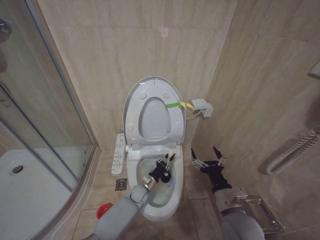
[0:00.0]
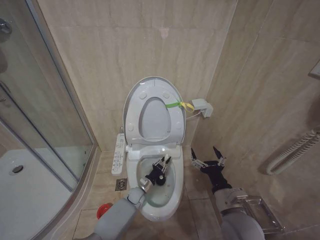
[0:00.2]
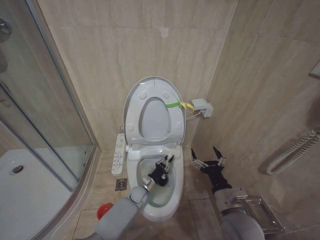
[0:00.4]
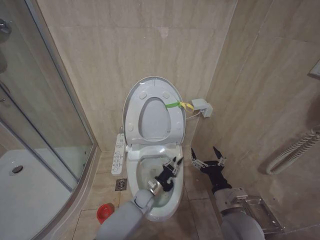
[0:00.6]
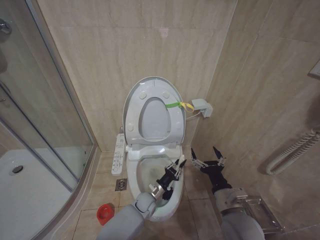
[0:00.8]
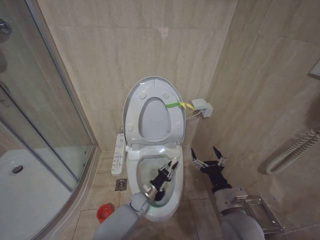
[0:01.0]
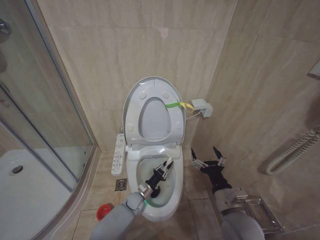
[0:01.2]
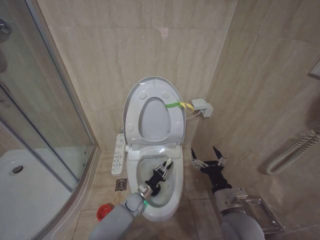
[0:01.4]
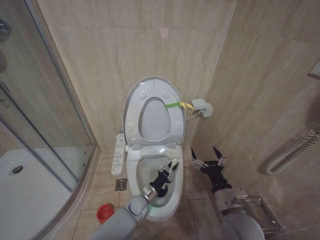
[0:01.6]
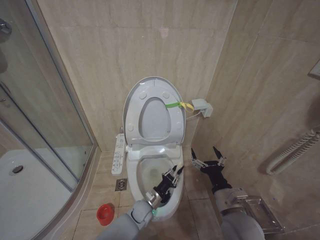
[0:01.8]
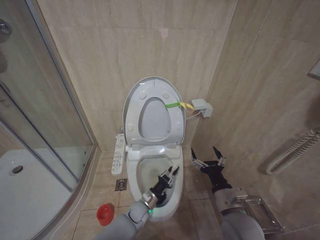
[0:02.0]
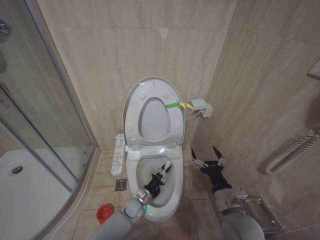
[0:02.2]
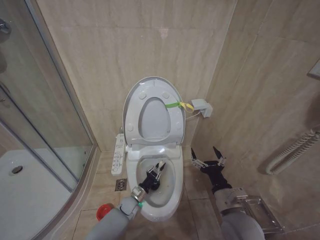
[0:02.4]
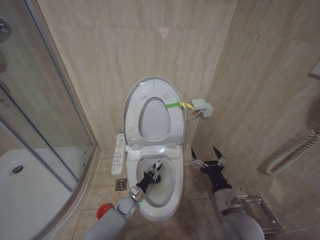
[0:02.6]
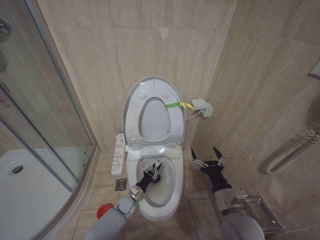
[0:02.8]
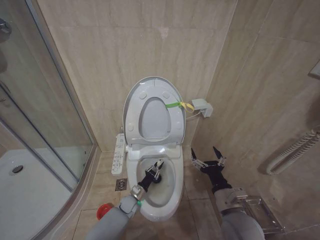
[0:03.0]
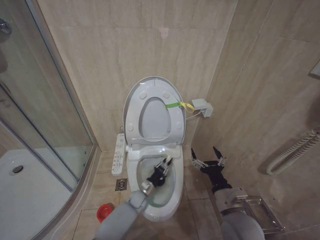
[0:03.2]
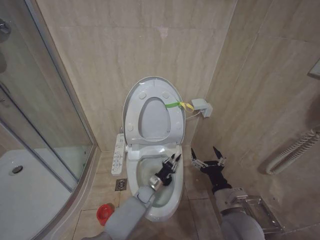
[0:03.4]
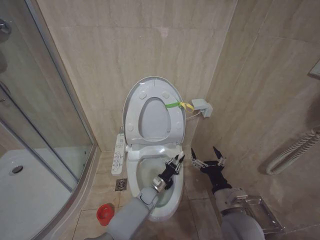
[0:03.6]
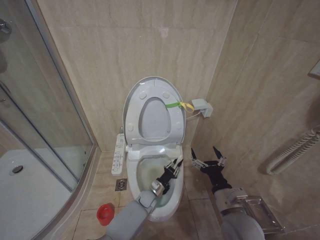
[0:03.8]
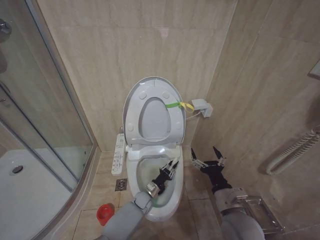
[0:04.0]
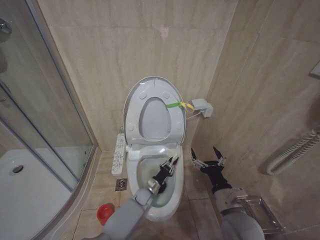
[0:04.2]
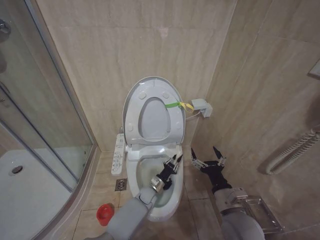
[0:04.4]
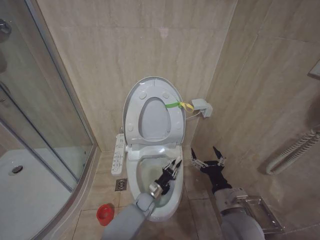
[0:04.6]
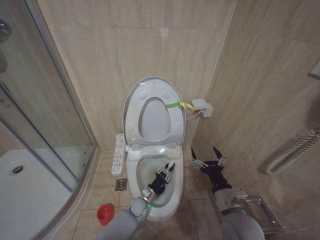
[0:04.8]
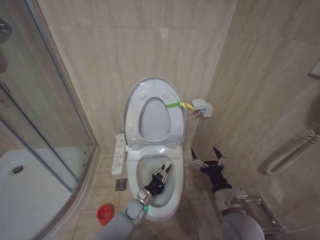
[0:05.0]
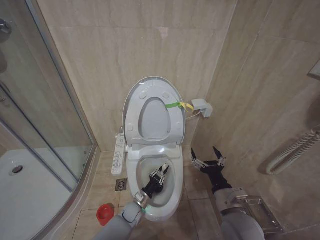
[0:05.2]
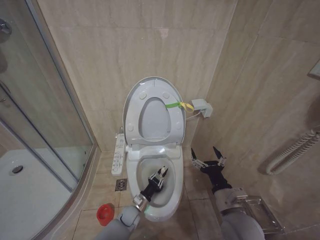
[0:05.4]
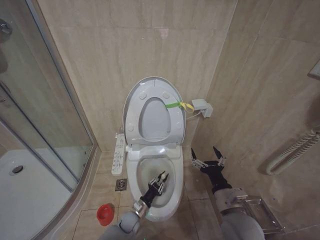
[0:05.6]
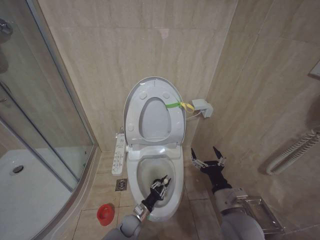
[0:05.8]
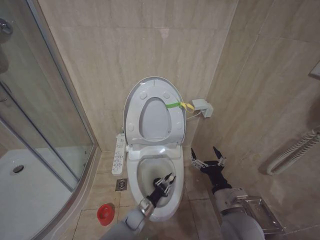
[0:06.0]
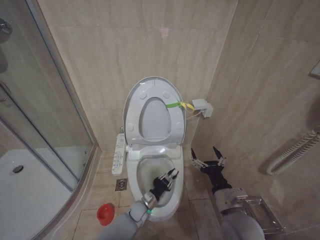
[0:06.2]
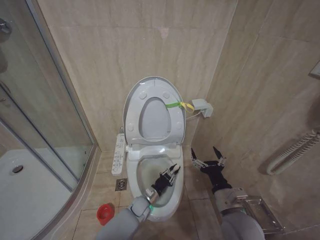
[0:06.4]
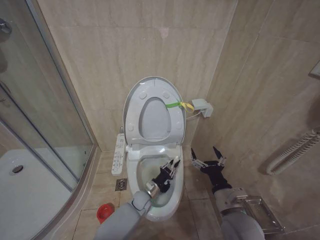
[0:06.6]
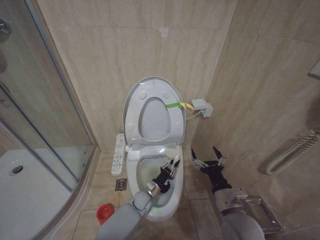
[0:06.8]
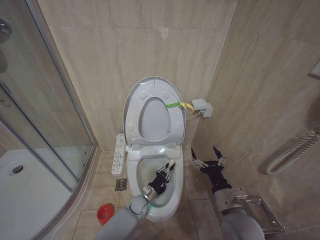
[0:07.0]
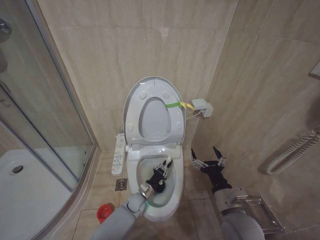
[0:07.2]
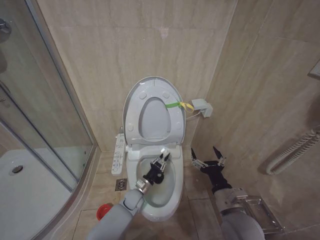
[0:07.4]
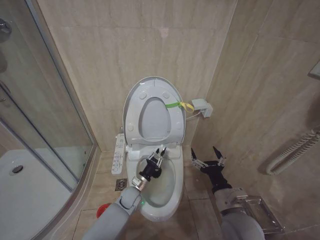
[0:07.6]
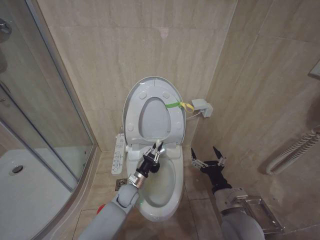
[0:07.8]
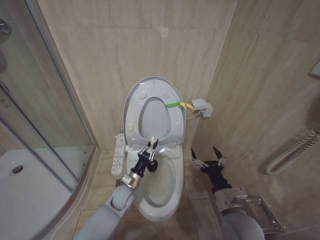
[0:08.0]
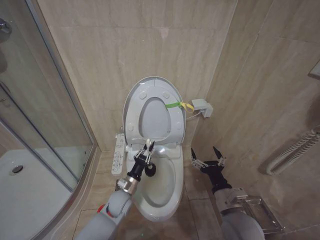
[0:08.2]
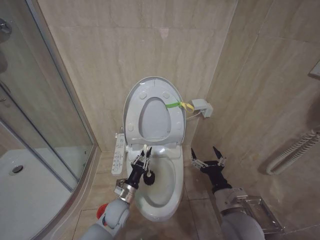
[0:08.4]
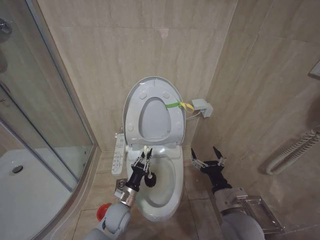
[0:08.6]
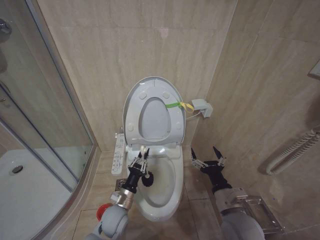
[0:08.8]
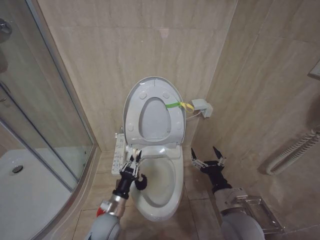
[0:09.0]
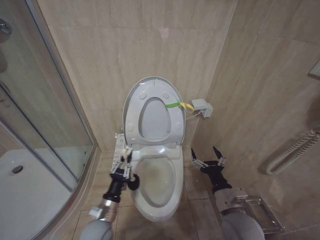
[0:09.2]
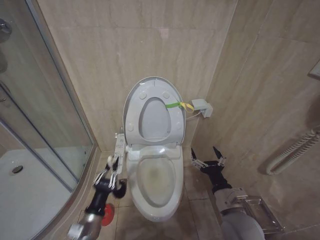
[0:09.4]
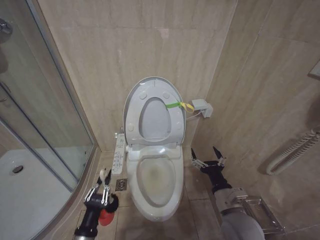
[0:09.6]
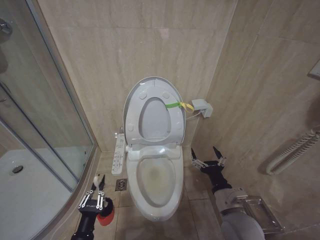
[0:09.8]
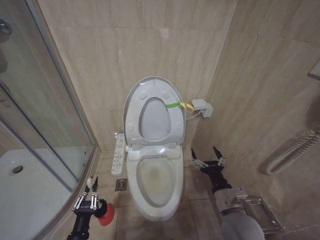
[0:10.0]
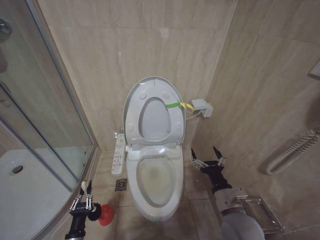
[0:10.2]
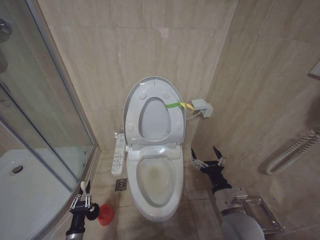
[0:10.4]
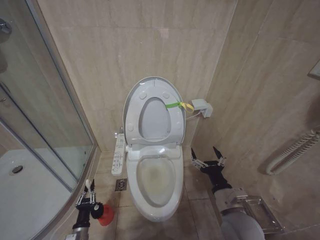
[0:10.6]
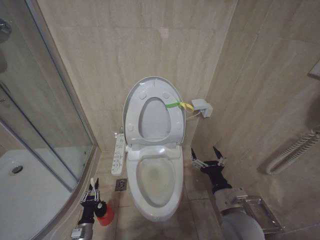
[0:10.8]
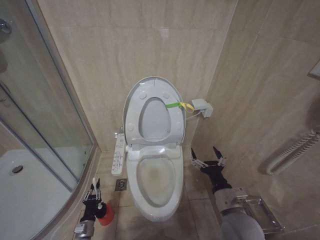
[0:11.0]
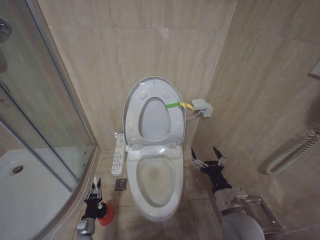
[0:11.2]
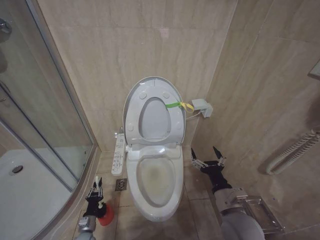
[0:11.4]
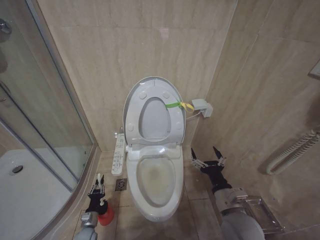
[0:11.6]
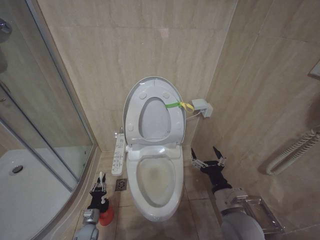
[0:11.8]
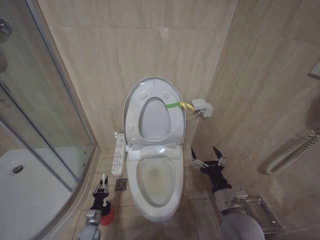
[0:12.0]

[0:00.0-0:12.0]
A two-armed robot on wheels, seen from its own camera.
Task of the whole recording: Open the toilet lid, clean the toilet bowl with a toilet brush, close the toilet lid, and flush.
0:00.0 to 0:01.6: The grippers stay close to where they were, moving slightly.
0:01.6 to 0:03.0: The left gripper moves to the left, some 5 cm.
0:03.0 to 0:04.4: The left gripper travels to the right by roughly 10 cm.
0:04.4 to 0:06.0: The left gripper moves backward, to the left and downward, roughly 15 cm.
0:06.0 to 0:07.6: The left gripper moves upward and forward, roughly 15 cm.
0:07.6 to 0:09.0: The left gripper moves backward, upward and to the left, approximately 15 cm.
0:09.0 to 0:10.4: The left gripper moves to the left, downward and backward, about 20 cm.
0:10.4 to 0:12.0: The left gripper heads forward and downward, covering about 15 cm.

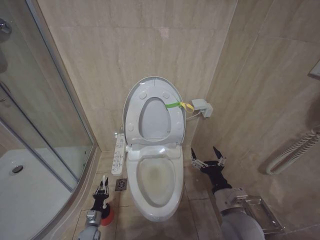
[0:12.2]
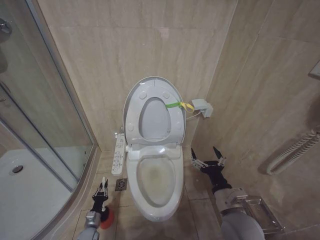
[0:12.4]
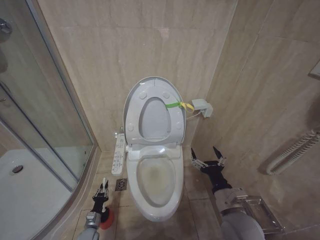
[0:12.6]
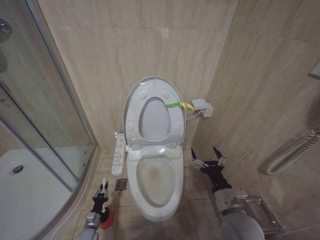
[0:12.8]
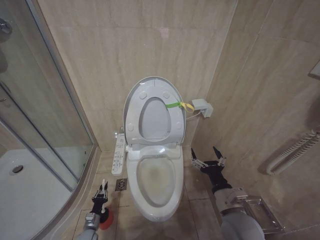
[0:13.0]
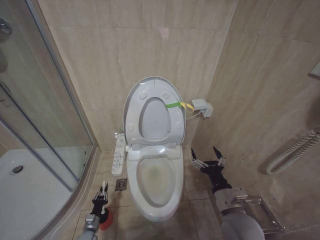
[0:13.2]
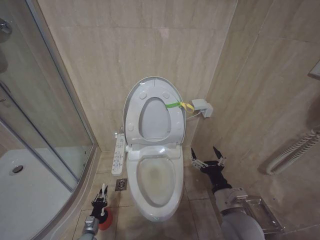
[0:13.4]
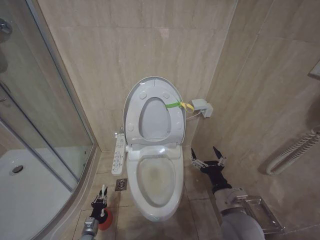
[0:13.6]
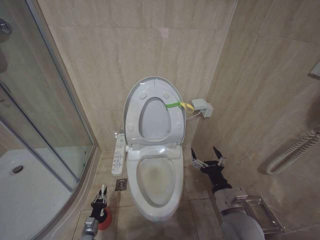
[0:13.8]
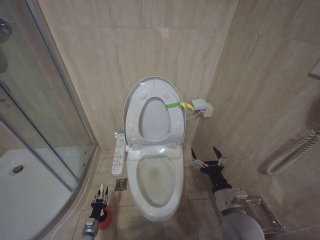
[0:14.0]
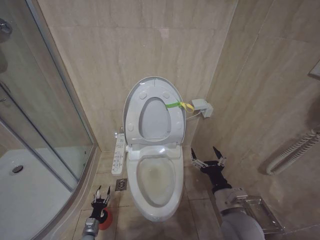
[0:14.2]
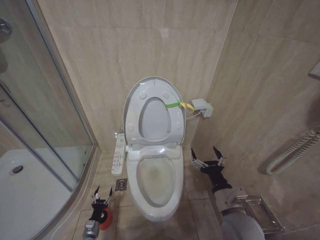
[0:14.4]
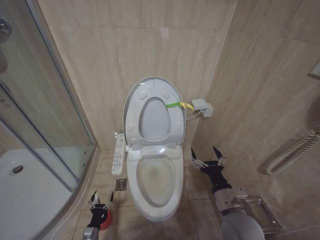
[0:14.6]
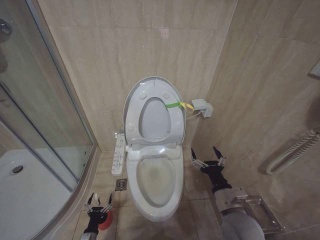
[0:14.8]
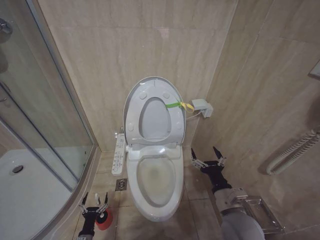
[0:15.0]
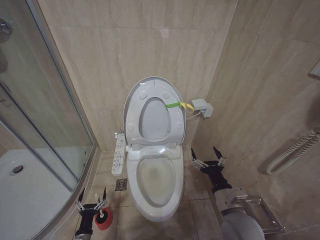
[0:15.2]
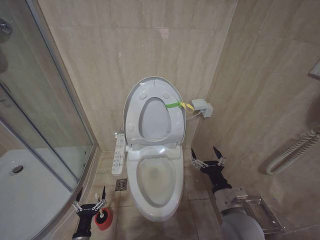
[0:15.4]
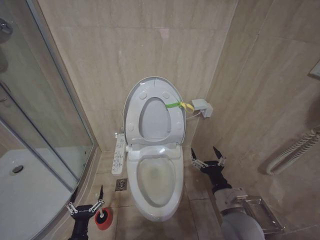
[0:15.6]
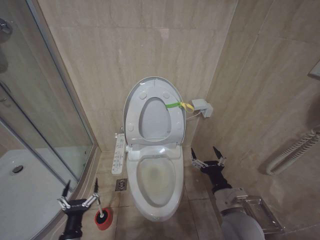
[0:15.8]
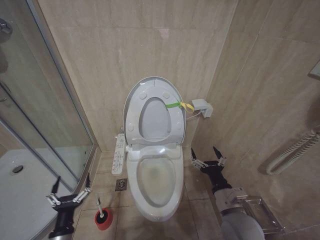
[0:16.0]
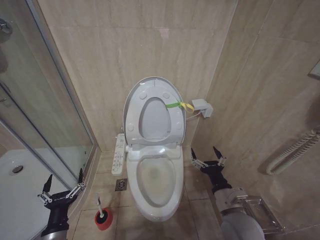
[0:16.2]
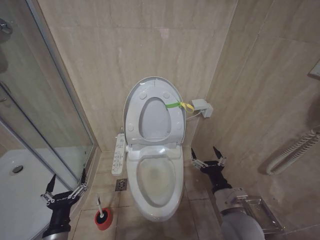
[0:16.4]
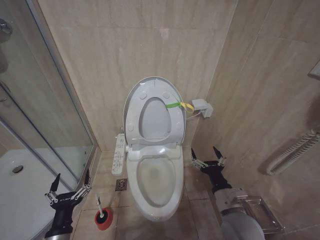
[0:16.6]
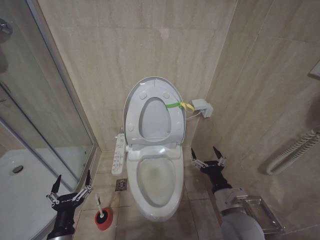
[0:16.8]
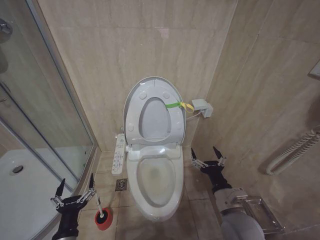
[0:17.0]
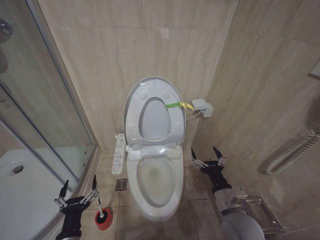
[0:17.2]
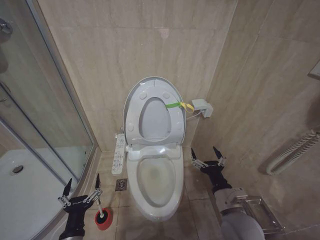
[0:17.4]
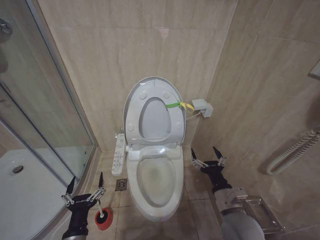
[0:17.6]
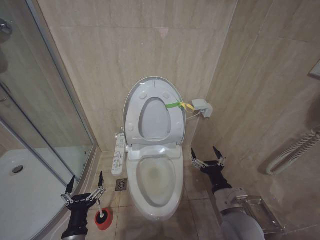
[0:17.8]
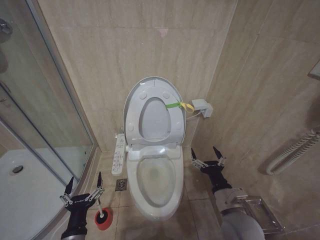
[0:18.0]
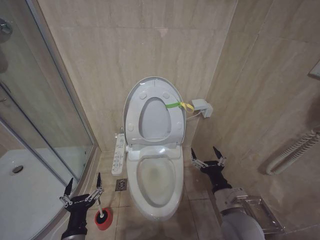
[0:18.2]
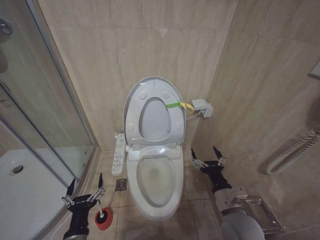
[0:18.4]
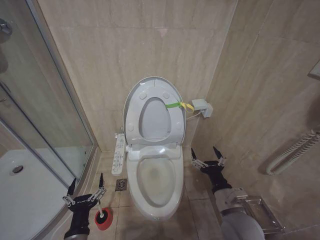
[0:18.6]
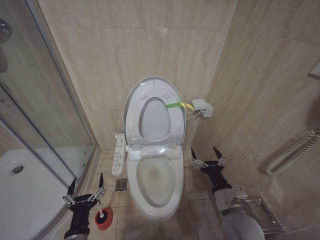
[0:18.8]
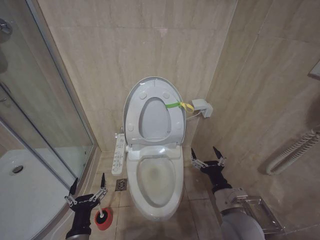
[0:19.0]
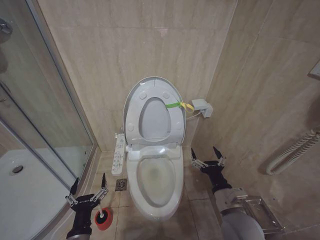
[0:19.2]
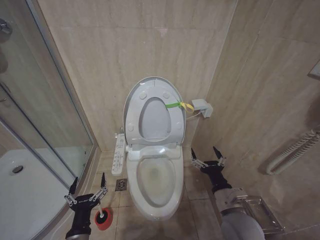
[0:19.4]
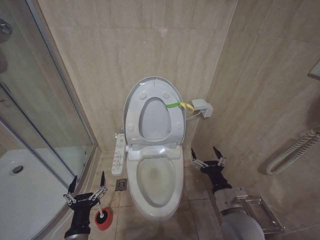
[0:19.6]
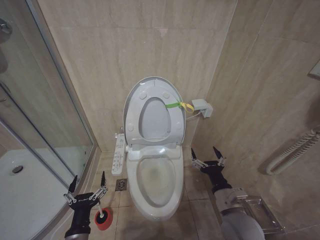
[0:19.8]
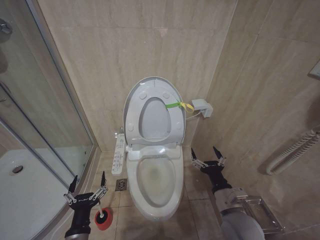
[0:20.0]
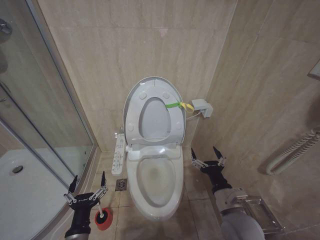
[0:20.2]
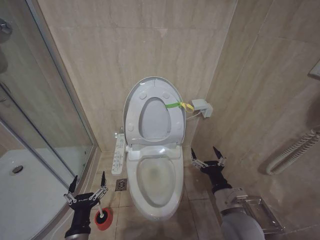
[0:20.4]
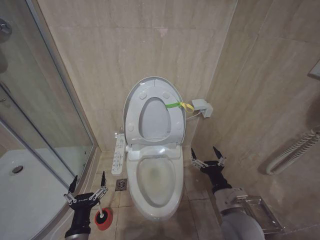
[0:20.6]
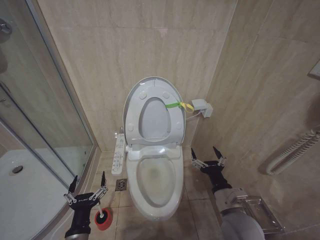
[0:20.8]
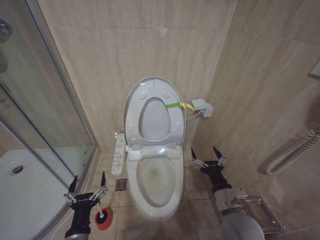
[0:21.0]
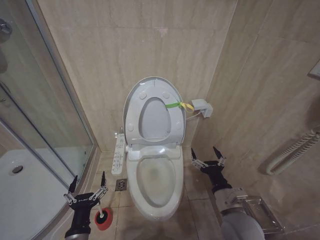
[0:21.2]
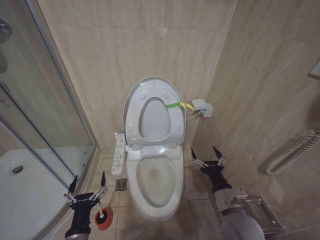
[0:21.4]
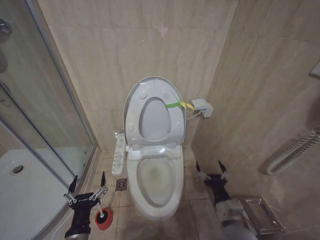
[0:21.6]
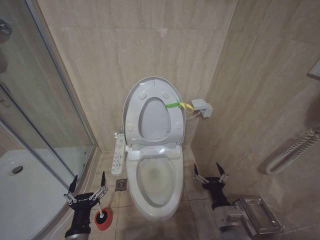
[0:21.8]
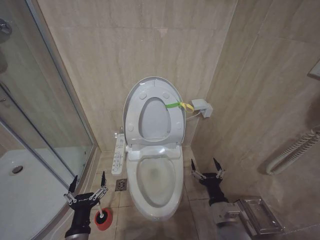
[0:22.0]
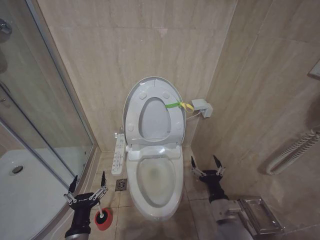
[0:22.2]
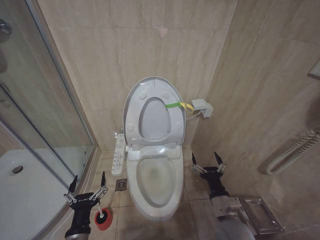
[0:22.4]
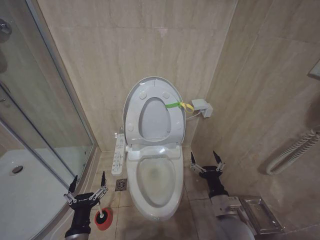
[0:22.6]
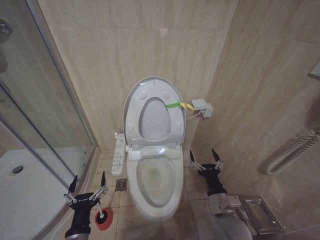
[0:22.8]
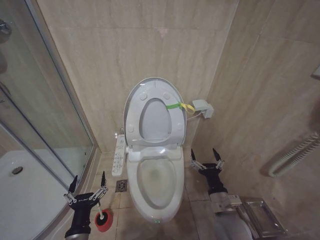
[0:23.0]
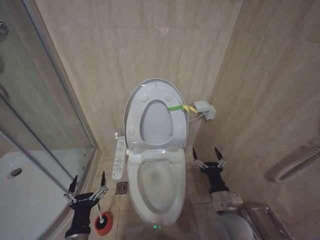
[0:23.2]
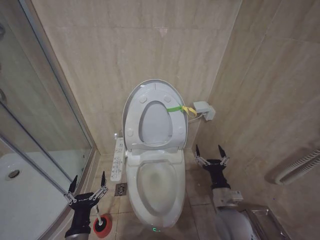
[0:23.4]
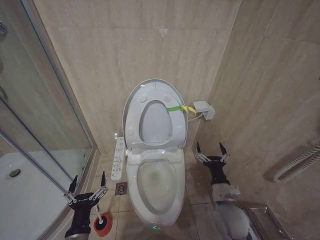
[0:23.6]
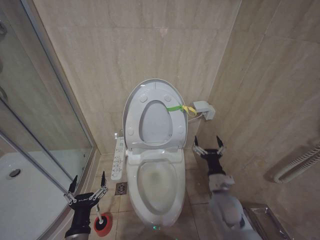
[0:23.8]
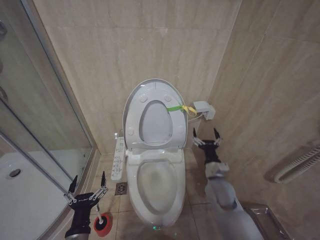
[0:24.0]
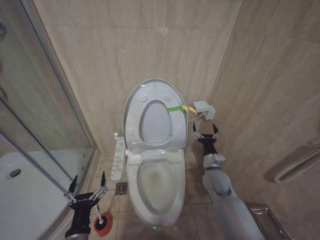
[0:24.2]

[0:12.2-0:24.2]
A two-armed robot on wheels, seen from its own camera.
Task of the whole recording: Open the toilet lid, clean the toilet bowl with a toilet brush, close the toilet lid, and flush.
0:12.2 to 0:13.8: There are only small adjustments of the grippers.
0:13.8 to 0:15.2: The left gripper heads upward and backward, covering about 10 cm, and opens its fingers.
0:15.2 to 0:16.6: The left gripper goes about 25 cm upward.
0:16.6 to 0:18.2: The grippers stay close to where they were, moving slightly.
0:18.2 to 0:21.2: Neither gripper changes place.
0:22.6 to 0:24.2: The right gripper travels forward by about 15 cm.
